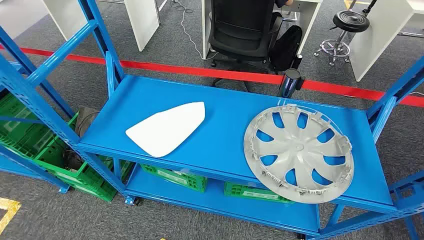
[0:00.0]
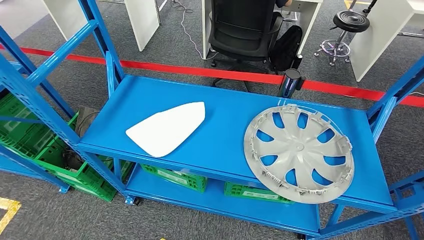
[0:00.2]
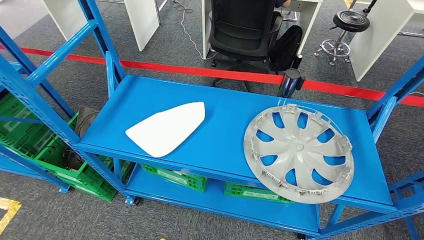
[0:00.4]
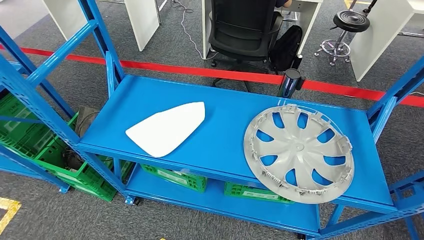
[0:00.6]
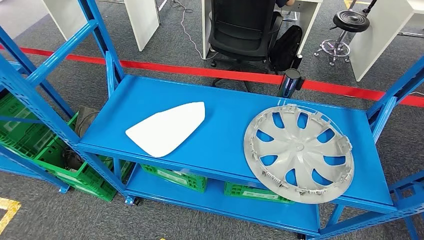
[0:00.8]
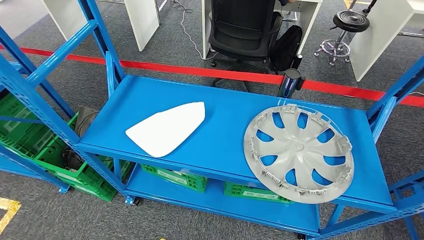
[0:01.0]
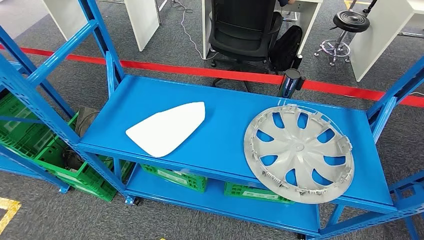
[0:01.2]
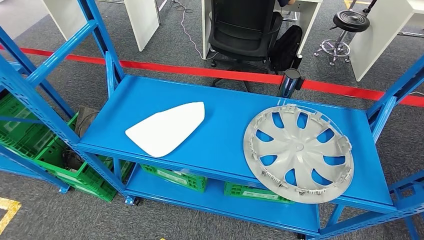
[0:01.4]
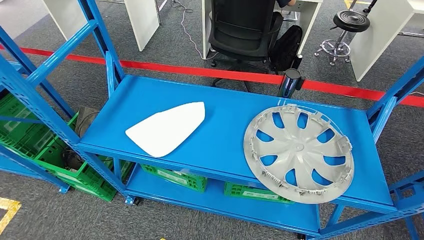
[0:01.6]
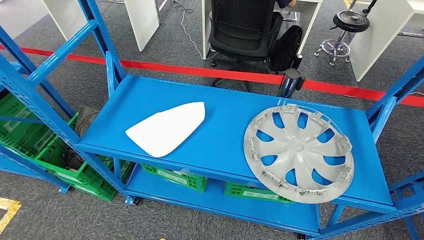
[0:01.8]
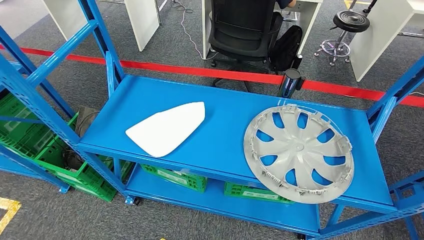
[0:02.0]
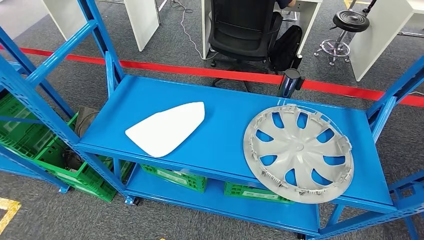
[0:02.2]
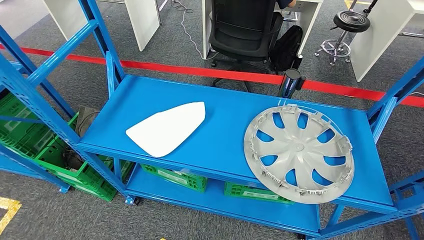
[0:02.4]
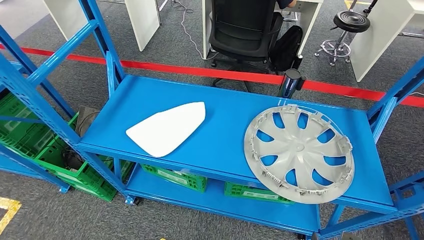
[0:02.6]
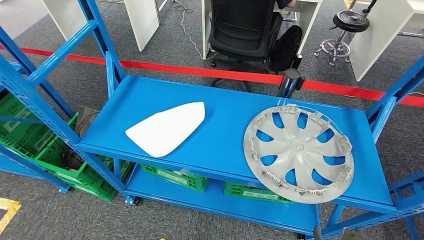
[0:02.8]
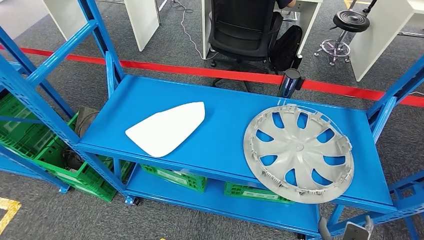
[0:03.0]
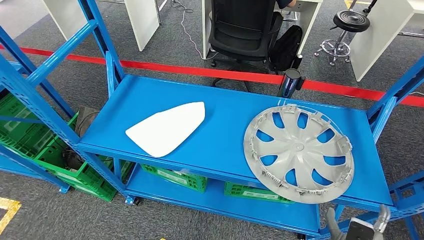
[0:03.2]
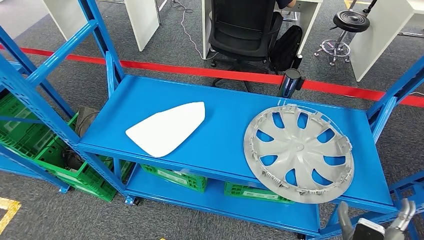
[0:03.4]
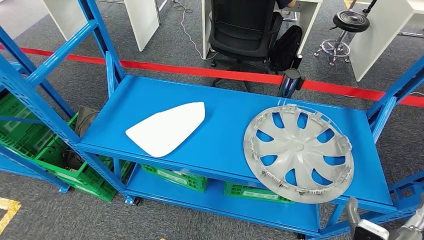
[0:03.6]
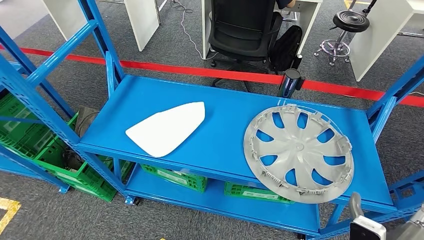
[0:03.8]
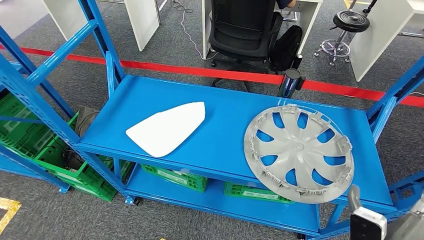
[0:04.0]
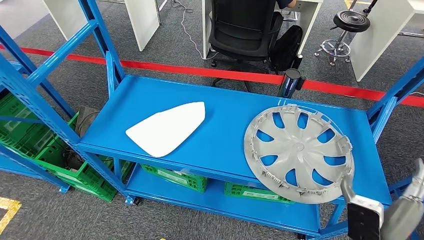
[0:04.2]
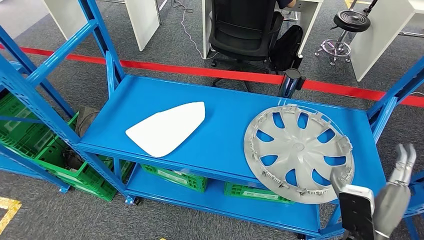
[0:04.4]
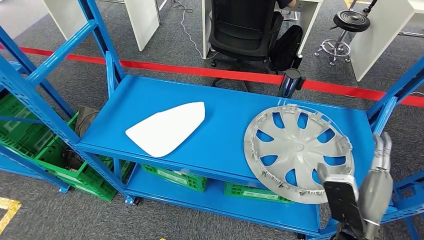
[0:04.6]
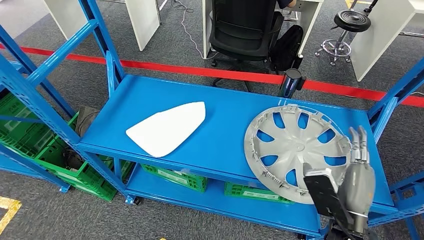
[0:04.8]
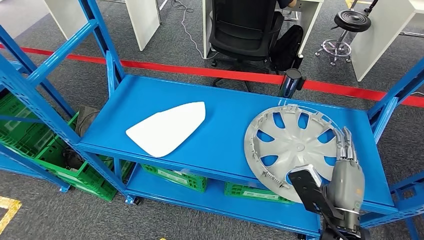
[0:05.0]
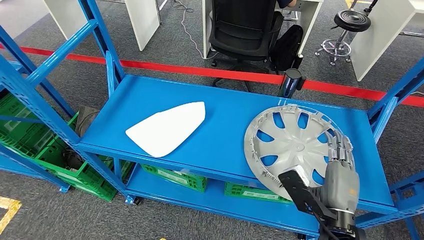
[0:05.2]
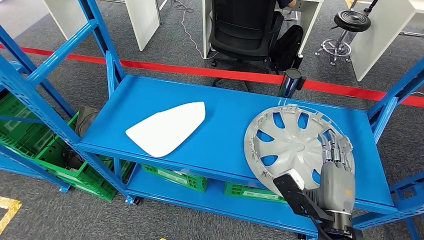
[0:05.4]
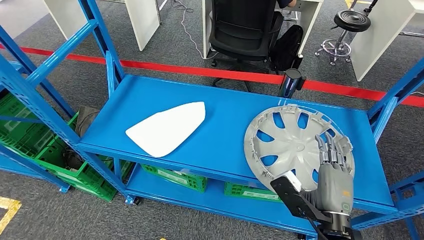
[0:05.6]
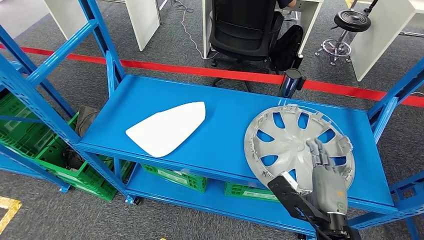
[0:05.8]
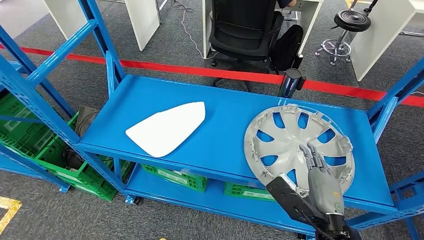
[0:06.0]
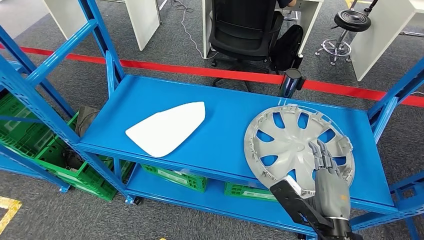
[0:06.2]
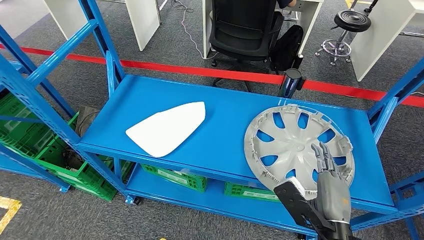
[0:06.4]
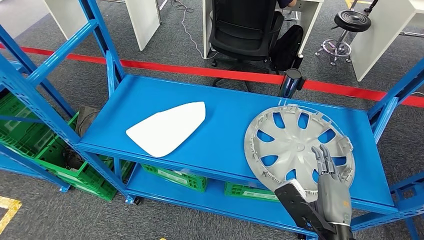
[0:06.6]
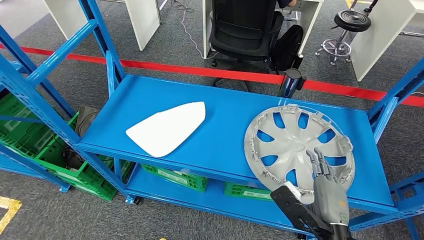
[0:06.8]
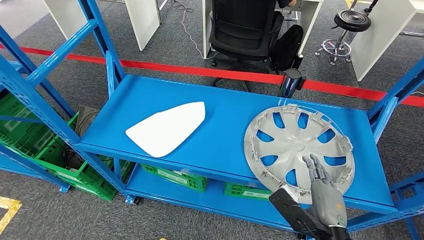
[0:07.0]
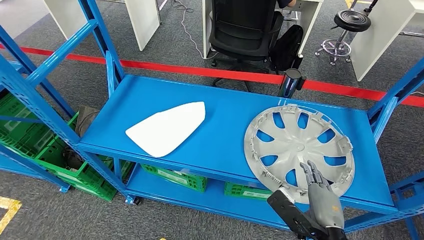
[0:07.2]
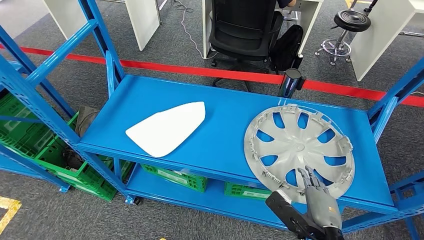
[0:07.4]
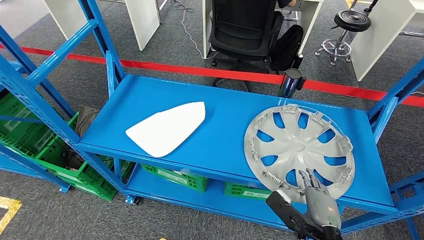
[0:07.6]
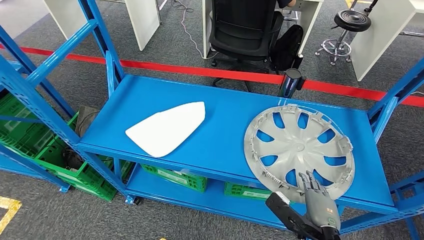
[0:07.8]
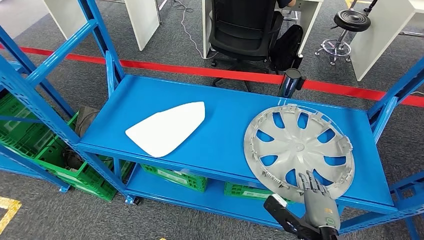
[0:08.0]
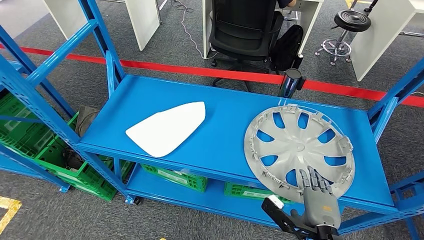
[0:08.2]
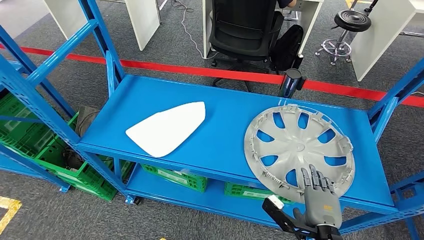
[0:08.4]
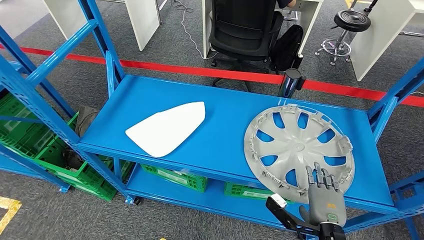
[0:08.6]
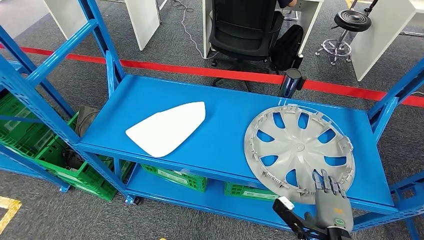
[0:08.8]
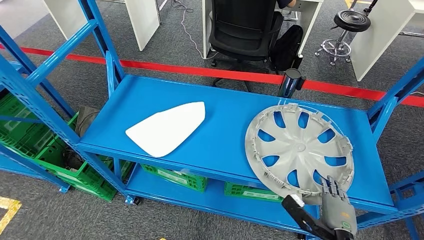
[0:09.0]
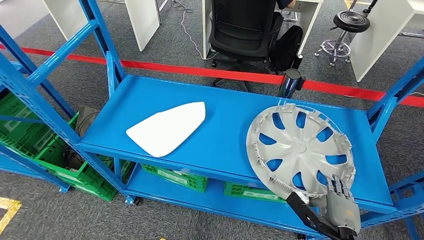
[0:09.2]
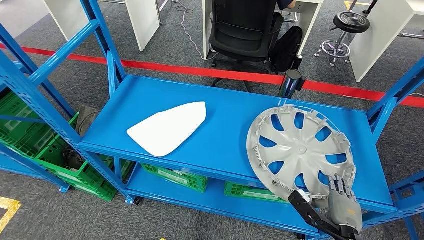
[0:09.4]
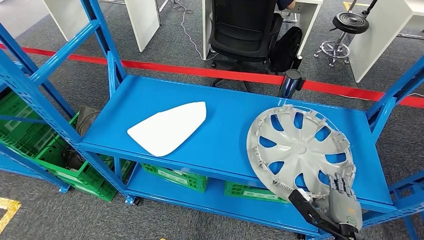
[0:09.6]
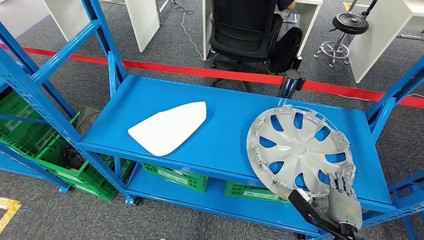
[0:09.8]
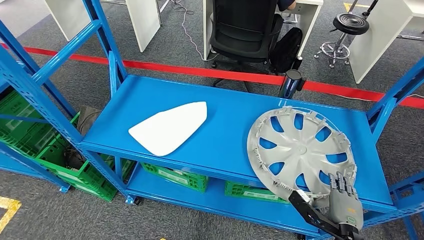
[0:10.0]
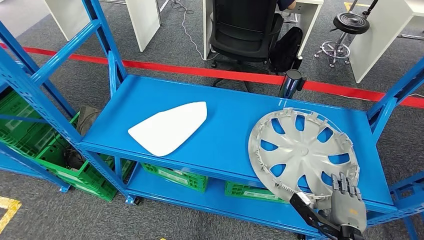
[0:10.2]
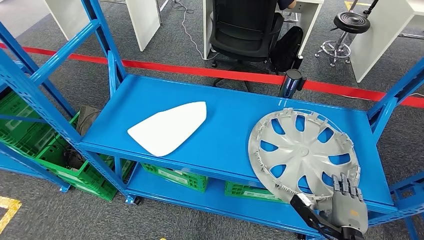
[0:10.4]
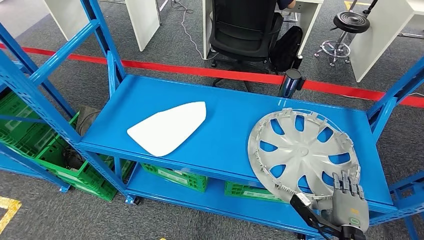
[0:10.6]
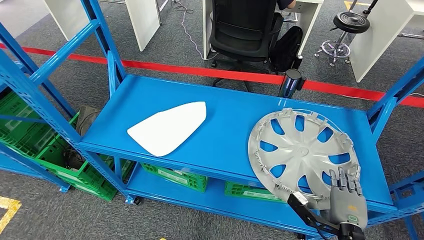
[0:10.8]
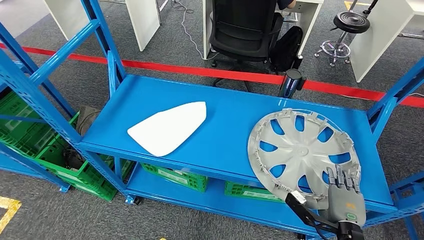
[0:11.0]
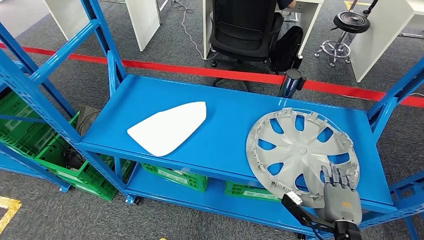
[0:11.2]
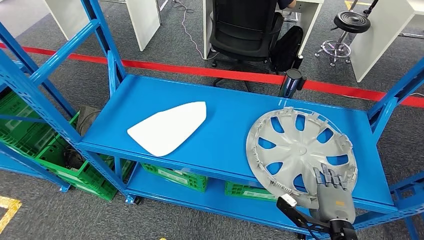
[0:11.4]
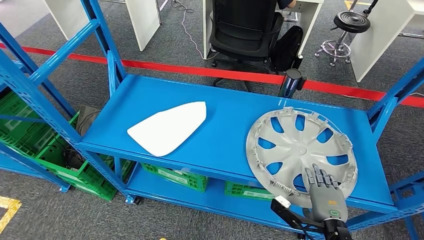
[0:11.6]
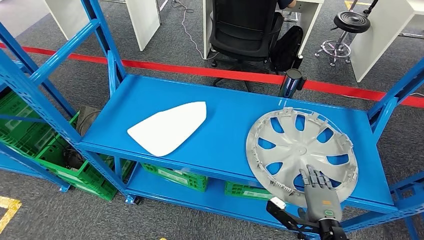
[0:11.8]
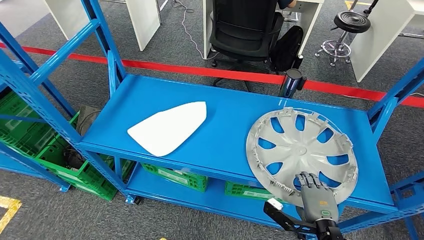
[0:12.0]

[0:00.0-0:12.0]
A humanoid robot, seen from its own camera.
0:03.0 to 0:04.4: The right hand is displaced upward by roughly 20 cm.
0:06.0 to 0:07.6: The right hand is displaced downward by about 5 cm.
0:07.6 to 0:09.0: The right hand ends up about 5 cm from where it was.
0:09.0 to 0:10.4: The hands make only small movements.
0:10.4 to 0:12.0: The right hand travels to the left by roughly 5 cm.

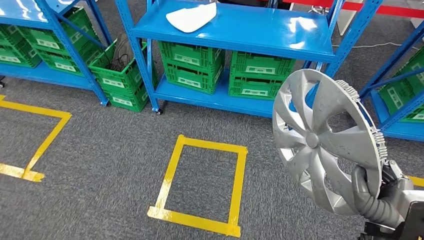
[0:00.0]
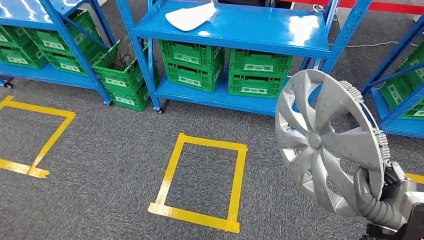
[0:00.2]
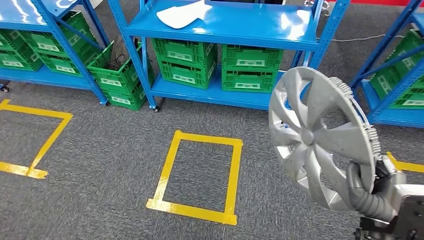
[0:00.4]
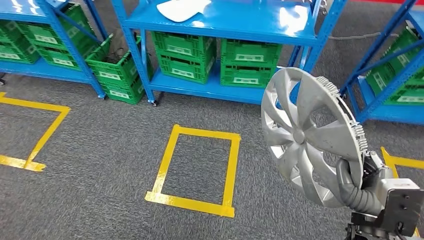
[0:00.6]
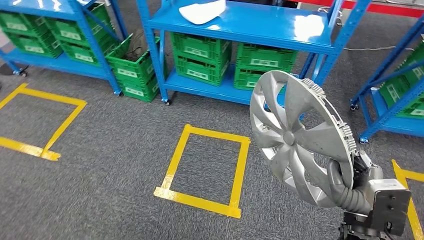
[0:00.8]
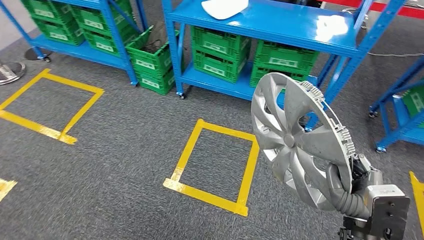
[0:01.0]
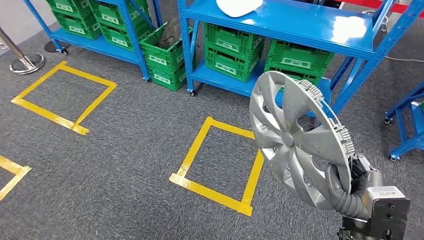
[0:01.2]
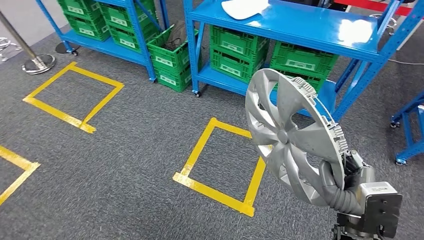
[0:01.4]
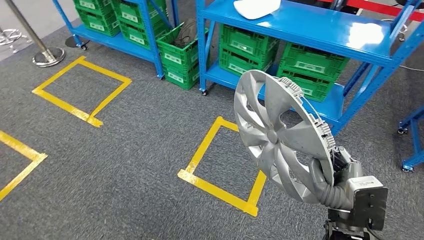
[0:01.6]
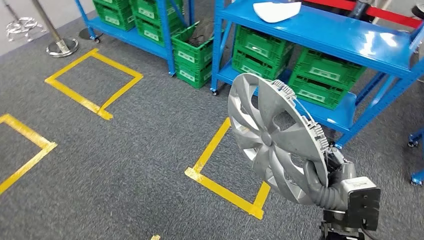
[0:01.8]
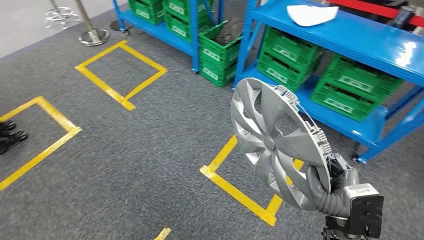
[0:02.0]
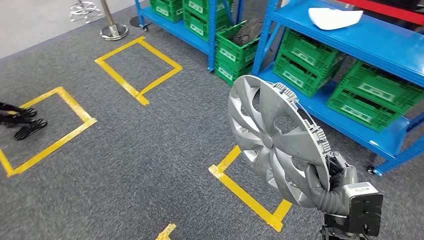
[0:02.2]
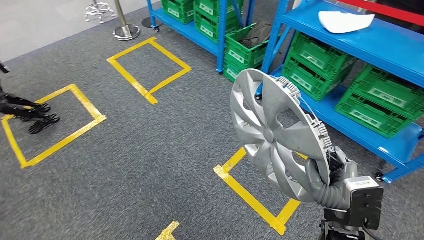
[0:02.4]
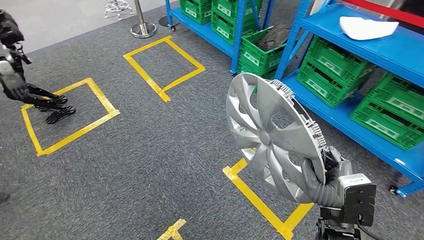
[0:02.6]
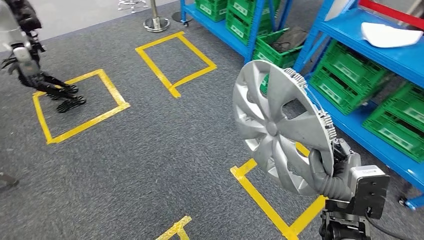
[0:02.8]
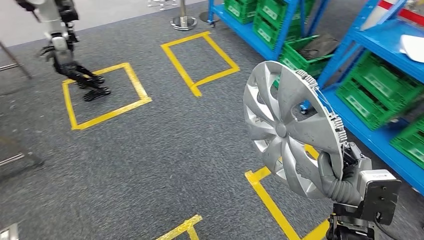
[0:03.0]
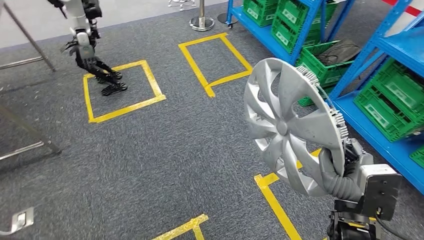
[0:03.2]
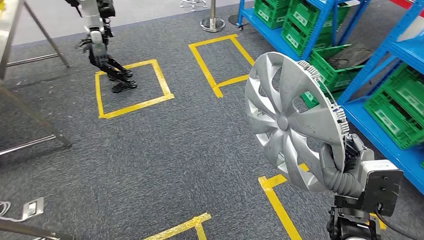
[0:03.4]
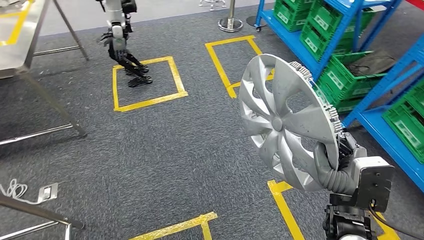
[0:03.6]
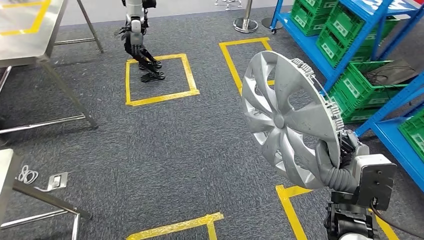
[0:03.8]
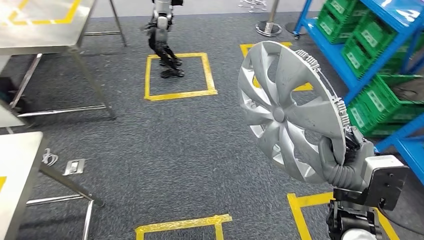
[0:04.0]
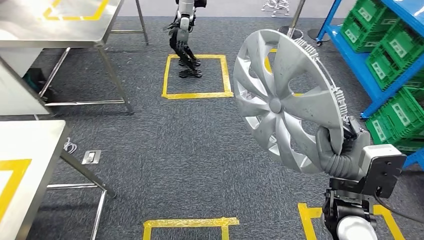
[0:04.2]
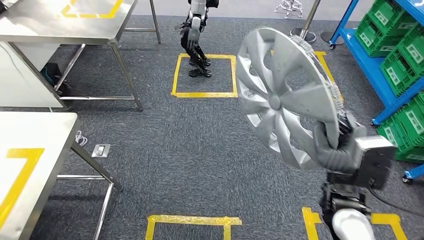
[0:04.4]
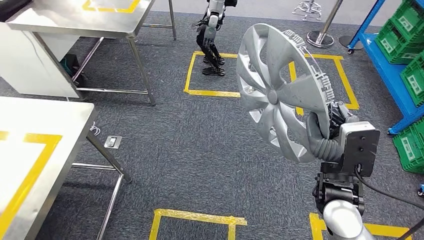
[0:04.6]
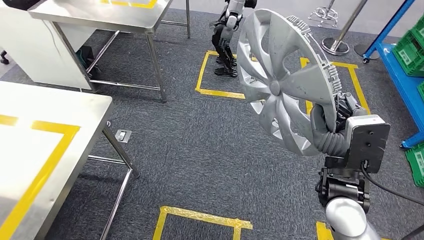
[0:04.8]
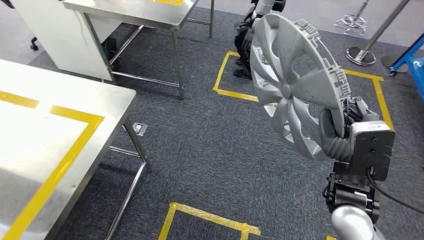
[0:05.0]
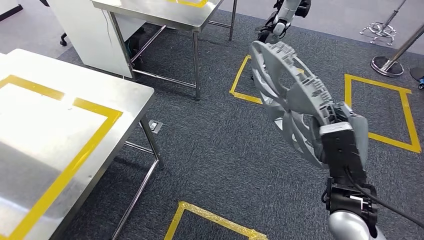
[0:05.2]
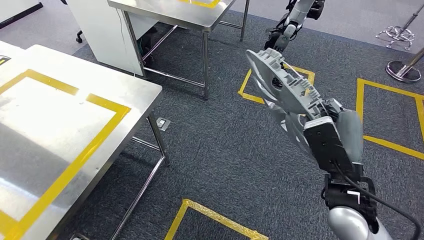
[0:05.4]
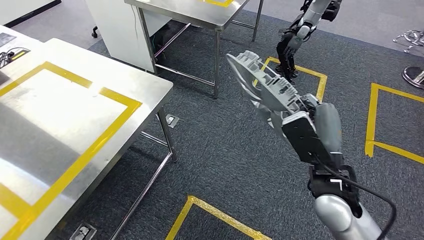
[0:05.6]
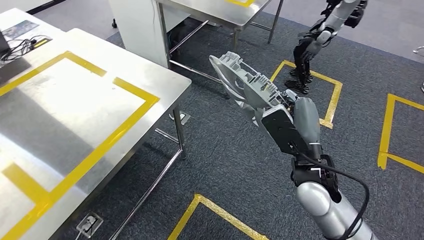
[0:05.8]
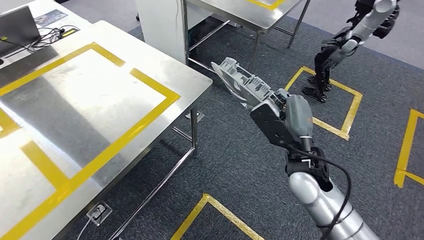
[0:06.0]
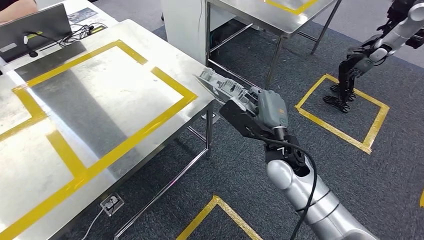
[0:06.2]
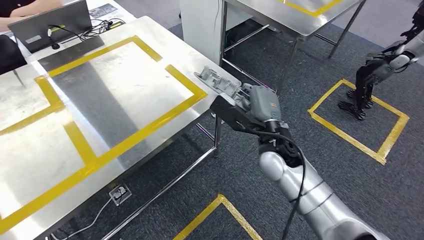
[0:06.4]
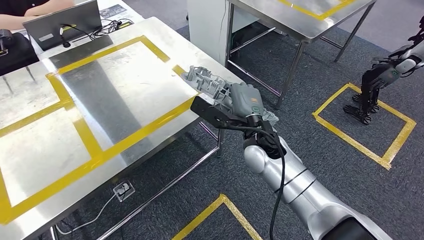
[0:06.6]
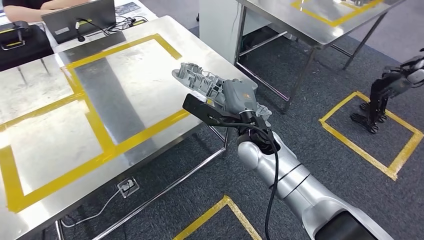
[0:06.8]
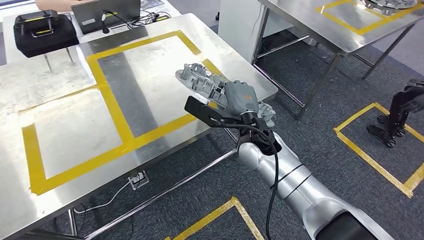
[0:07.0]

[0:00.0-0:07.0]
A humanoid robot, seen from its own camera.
Step, 0:00.0 to 0:06.6: Move the small component to the workbench.
